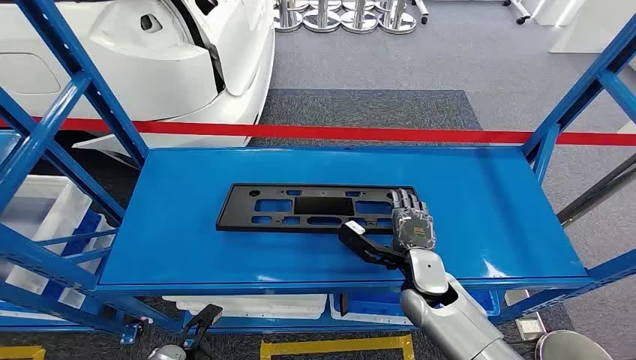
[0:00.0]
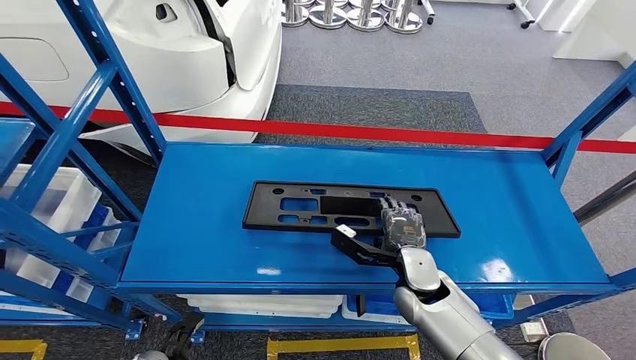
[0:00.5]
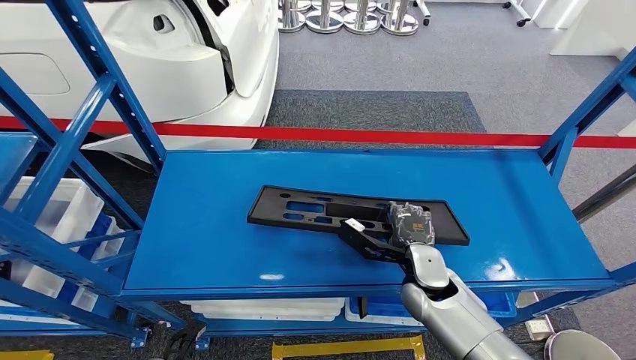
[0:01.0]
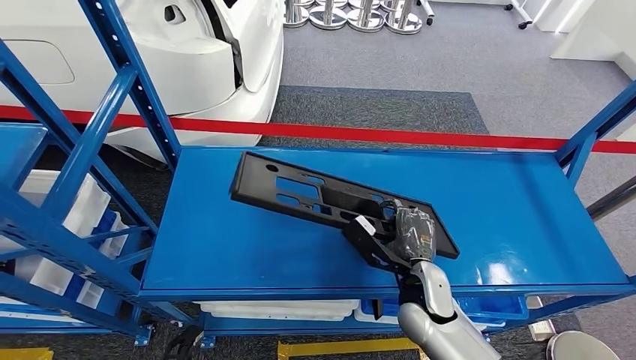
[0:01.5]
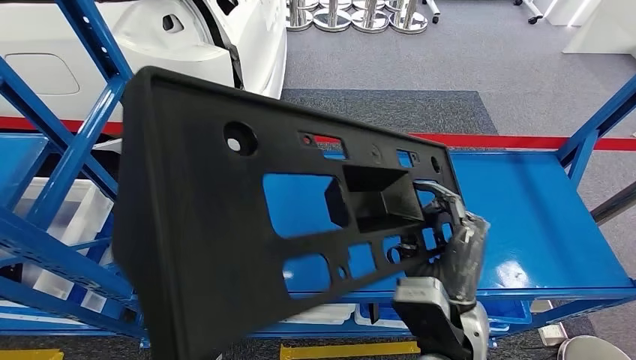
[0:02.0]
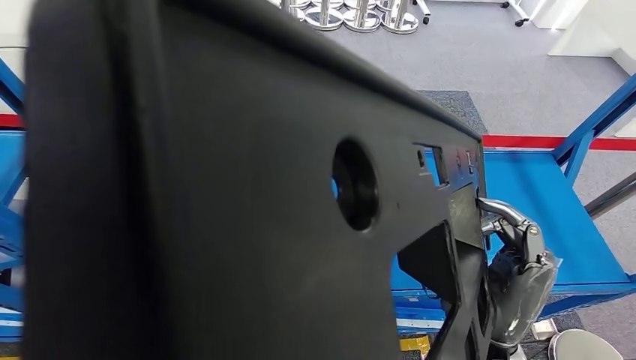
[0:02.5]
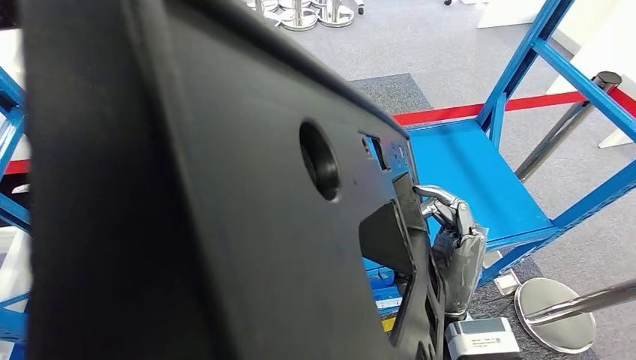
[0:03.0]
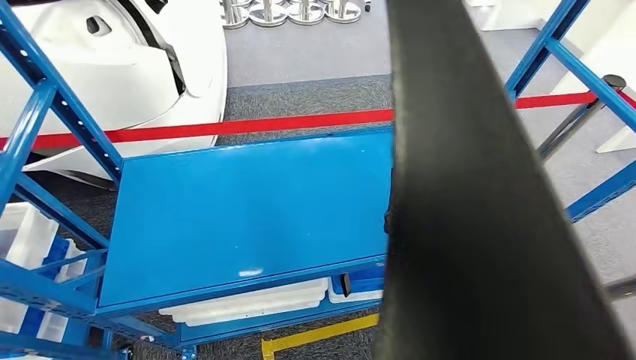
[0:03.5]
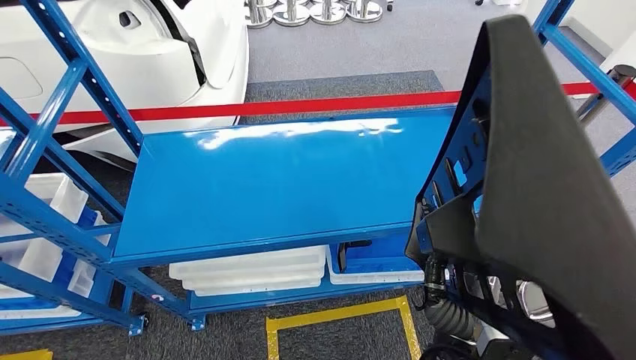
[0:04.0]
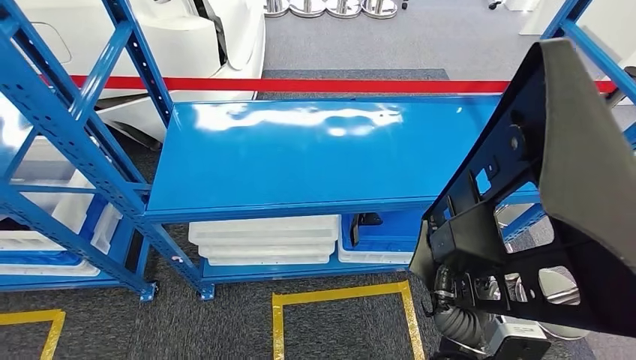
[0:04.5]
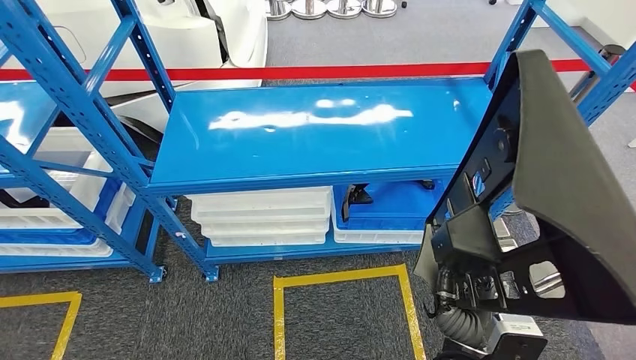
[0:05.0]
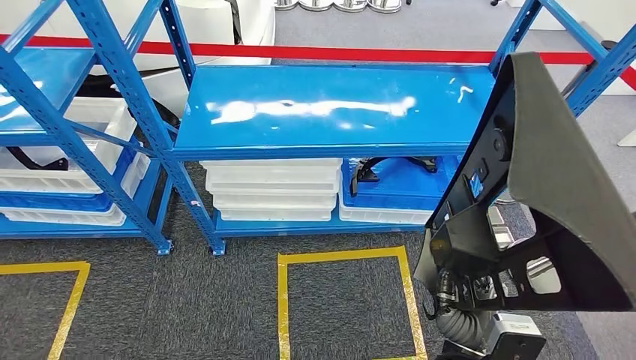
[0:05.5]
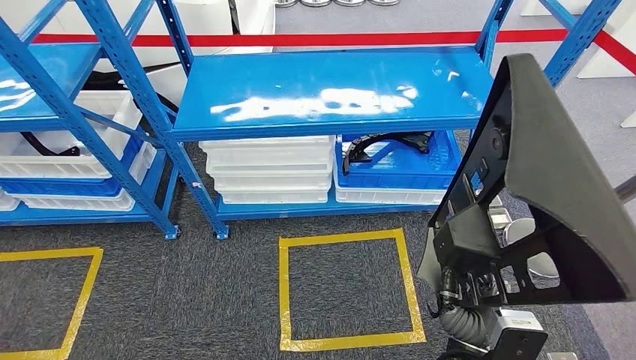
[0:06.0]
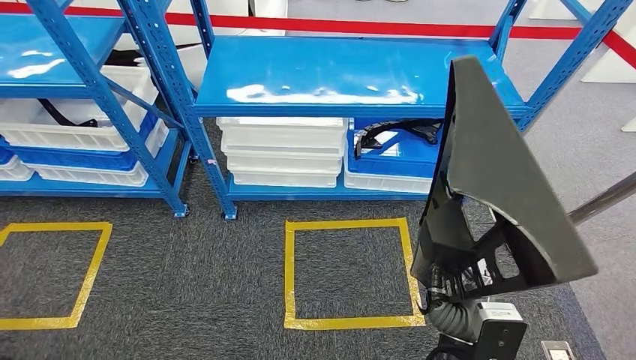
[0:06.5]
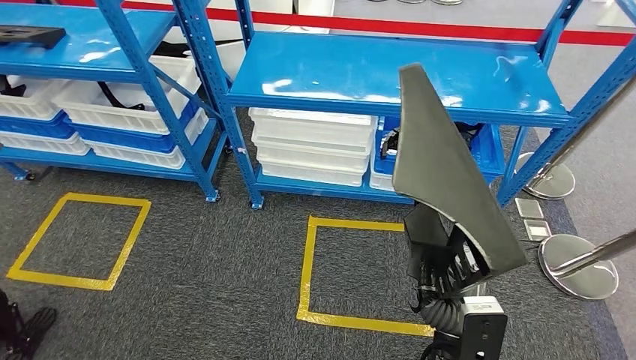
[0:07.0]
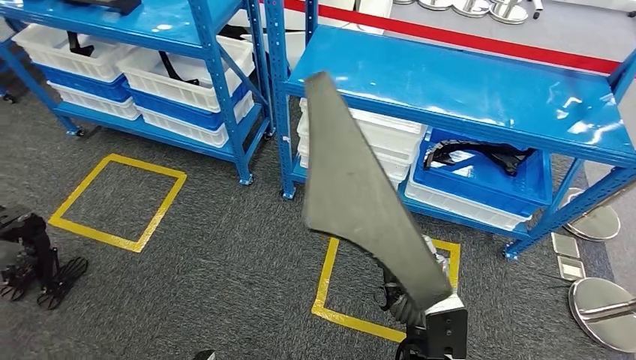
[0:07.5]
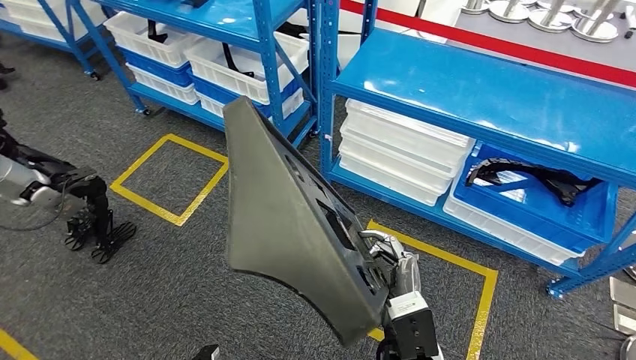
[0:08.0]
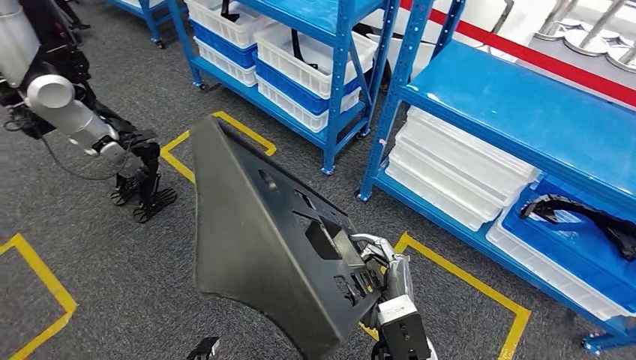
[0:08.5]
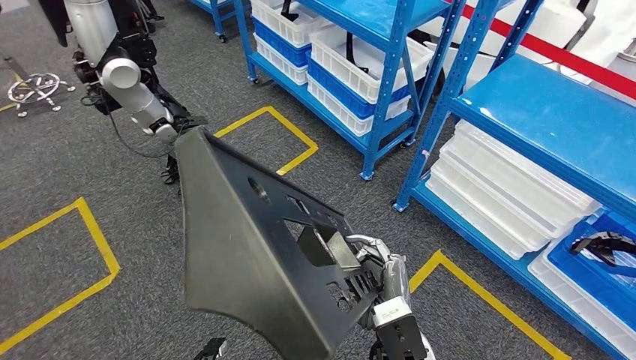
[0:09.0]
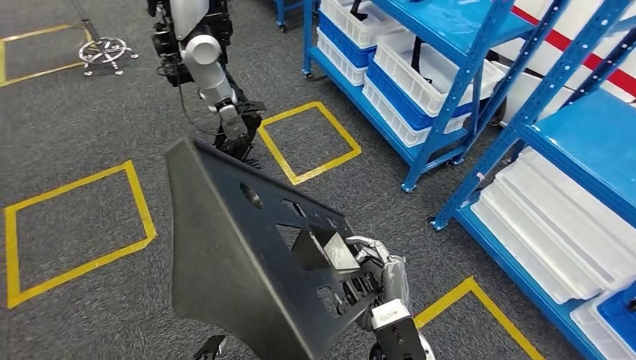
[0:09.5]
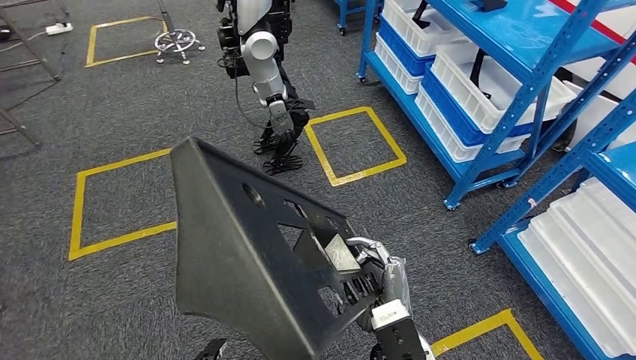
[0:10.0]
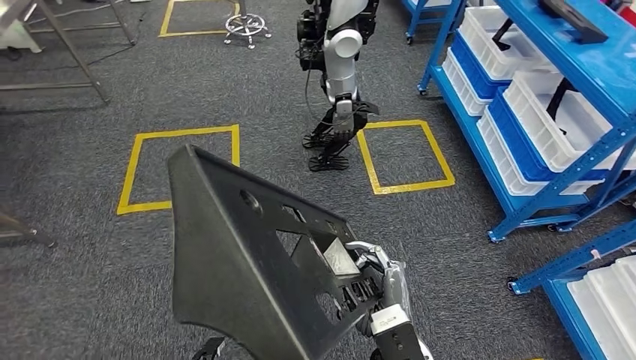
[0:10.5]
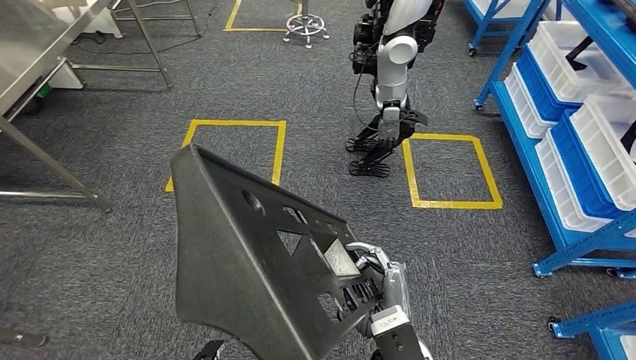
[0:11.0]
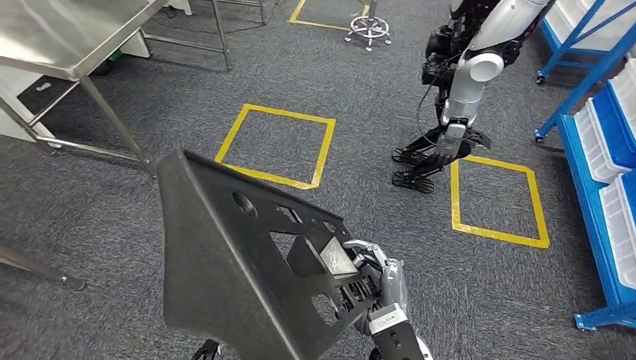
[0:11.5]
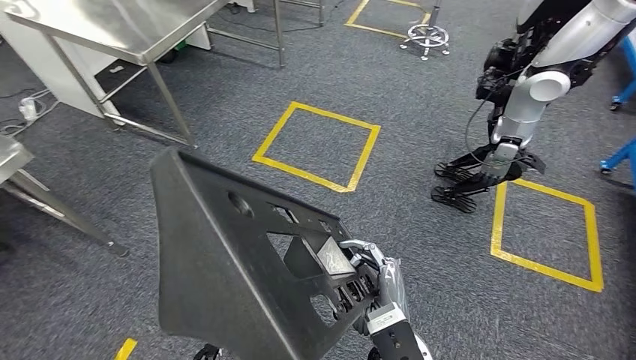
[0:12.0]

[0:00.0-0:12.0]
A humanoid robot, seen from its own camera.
Step, 0:00.0 to 0:03.0: Pick up the large material from the shelf.

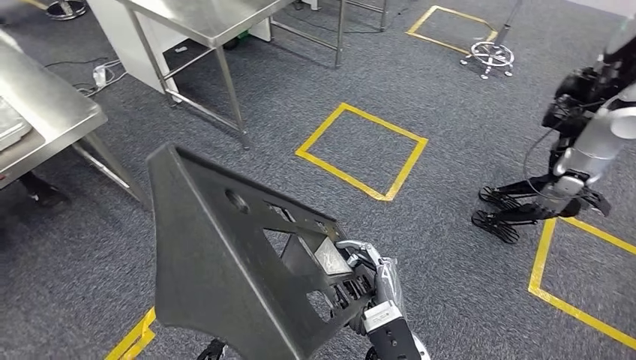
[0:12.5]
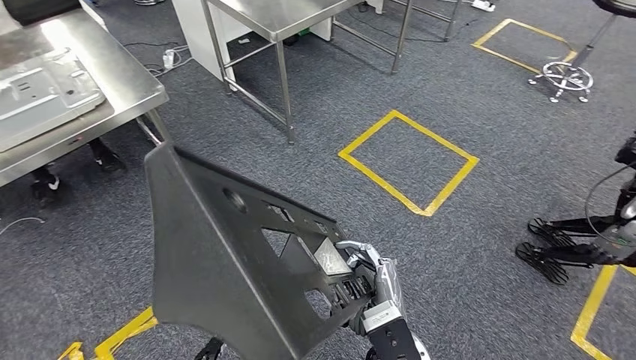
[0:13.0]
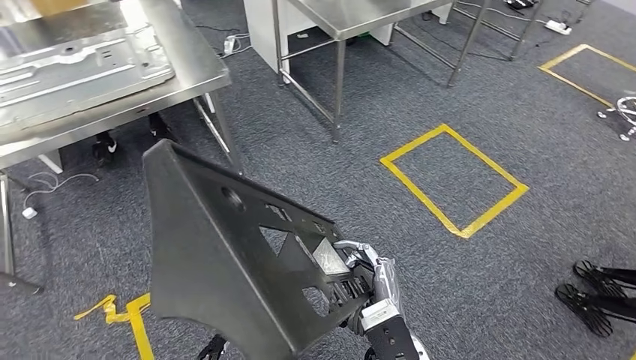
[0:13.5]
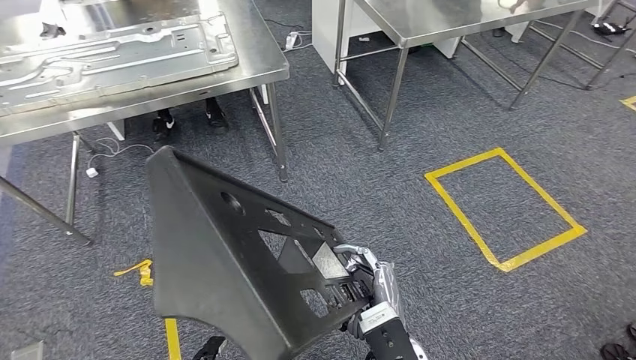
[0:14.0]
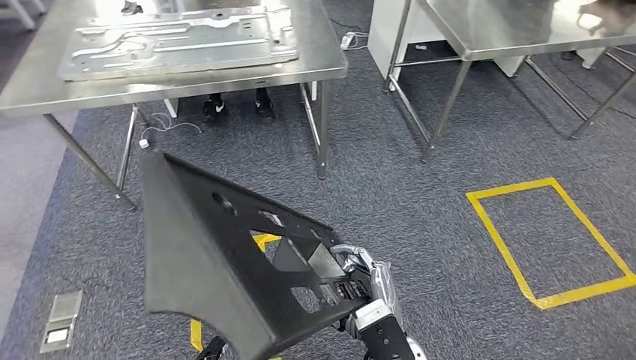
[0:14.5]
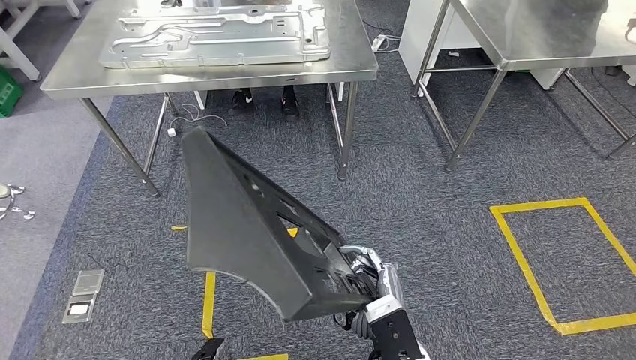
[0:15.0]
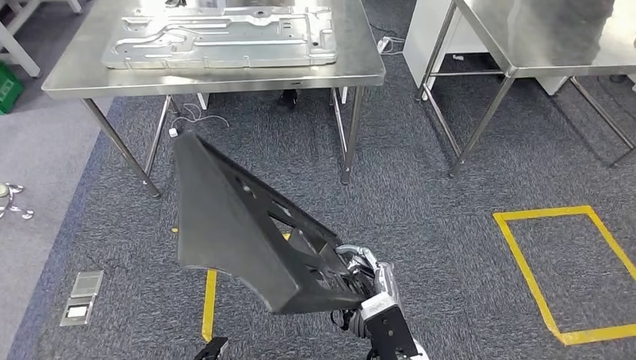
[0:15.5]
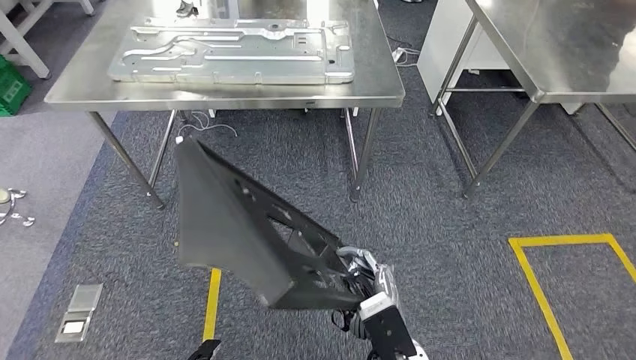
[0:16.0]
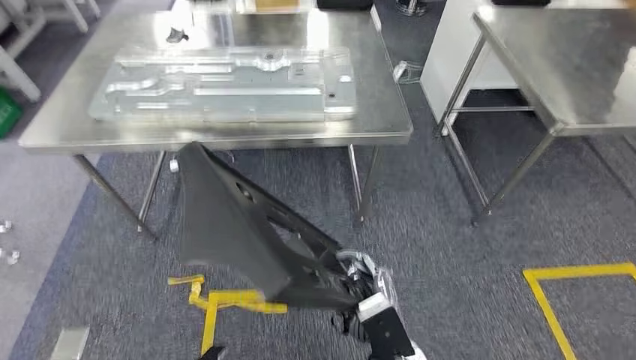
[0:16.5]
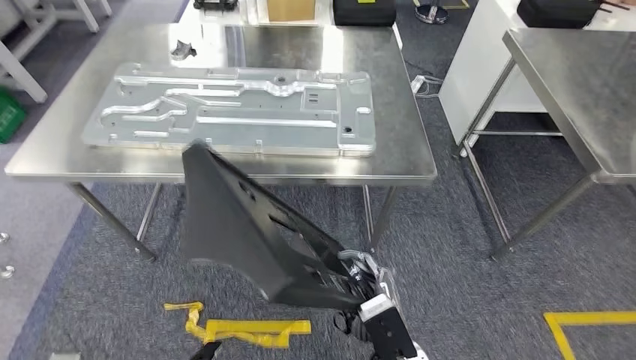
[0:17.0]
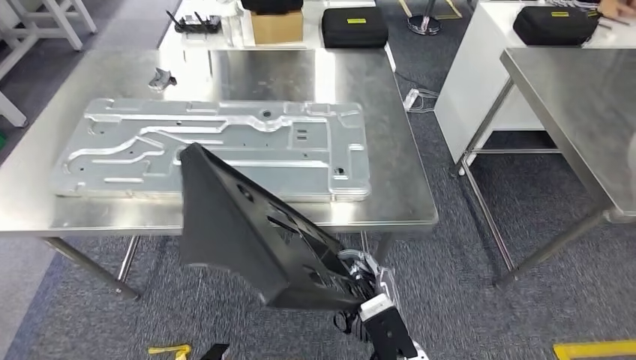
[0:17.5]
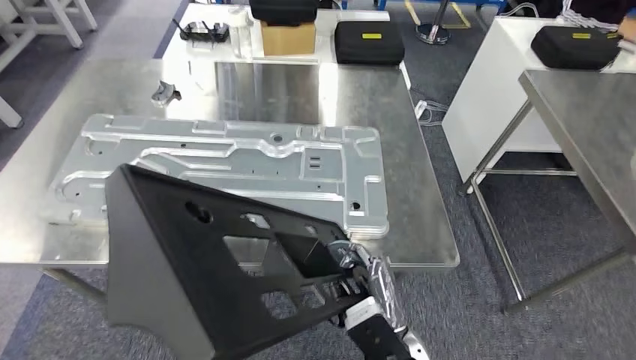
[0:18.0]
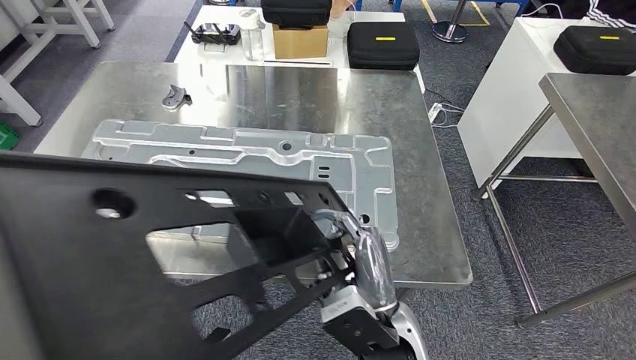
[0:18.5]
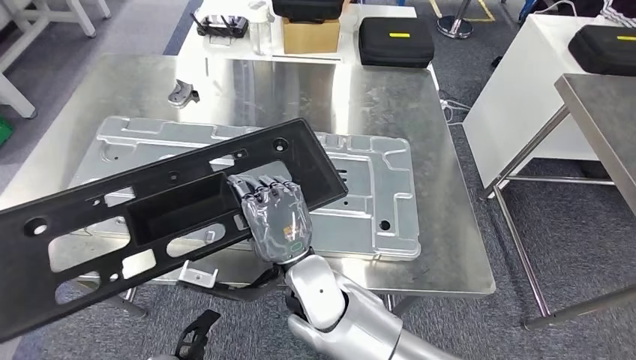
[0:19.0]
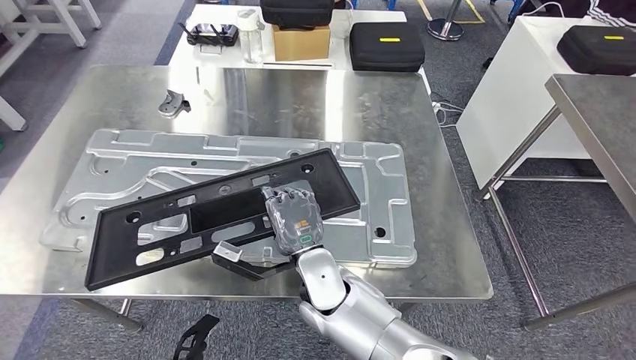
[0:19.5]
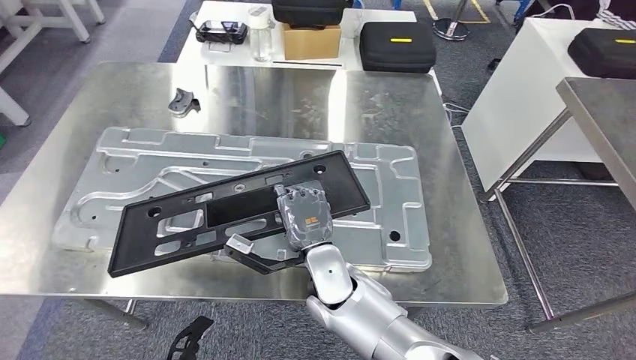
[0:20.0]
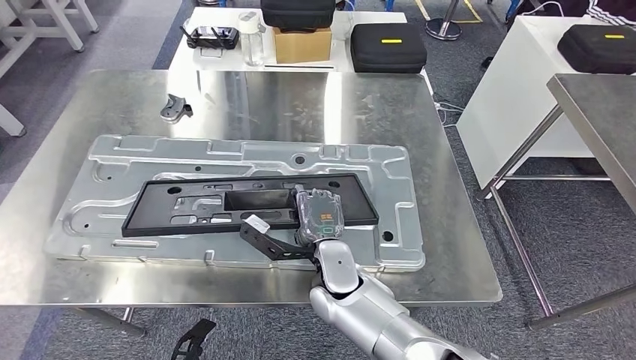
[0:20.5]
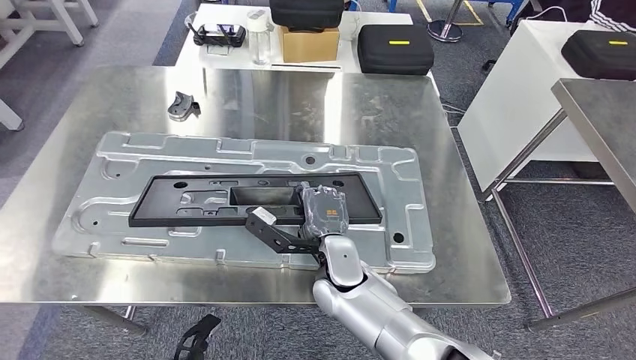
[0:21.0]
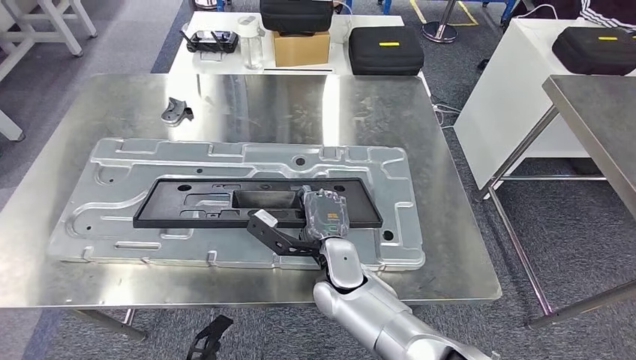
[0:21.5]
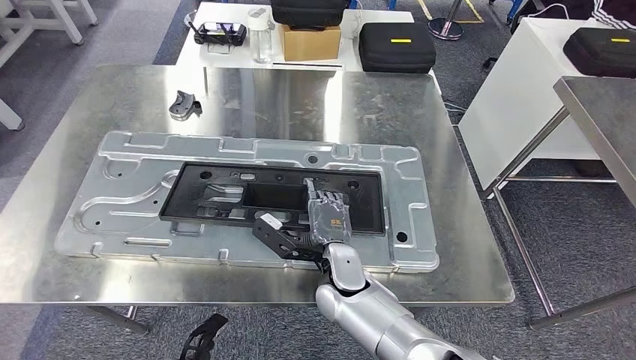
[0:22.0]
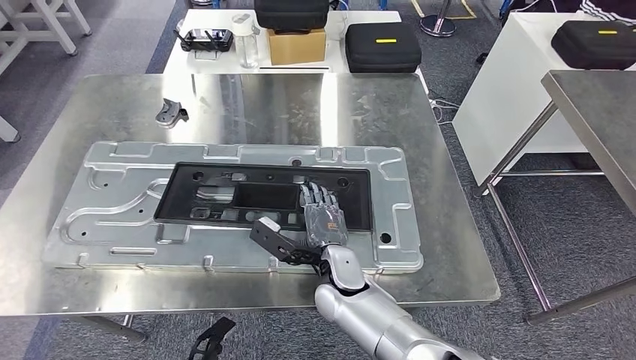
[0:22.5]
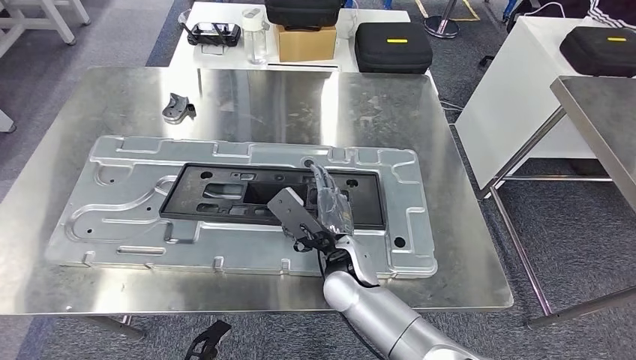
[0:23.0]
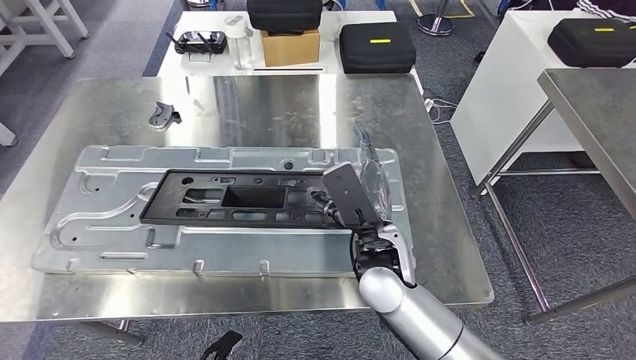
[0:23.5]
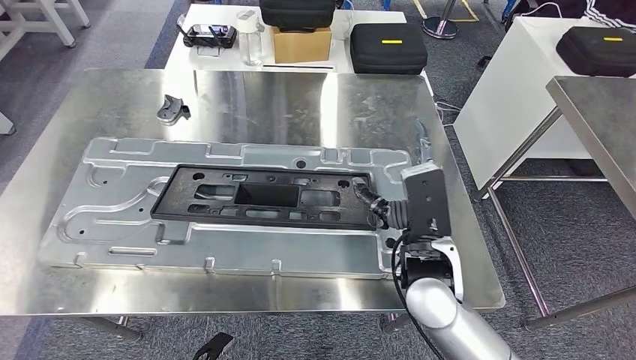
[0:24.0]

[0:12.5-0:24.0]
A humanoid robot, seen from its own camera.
Step, 0:12.5 to 0:16.0: Move the large material to the workbench.
Step, 0:17.0 to 0:20.5: Insert the large material into the corresponding slot on the workbench.
